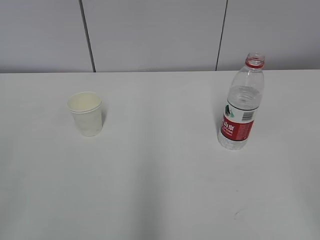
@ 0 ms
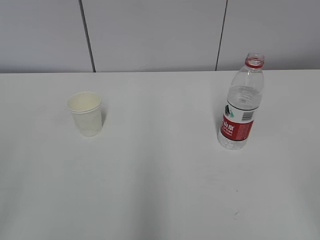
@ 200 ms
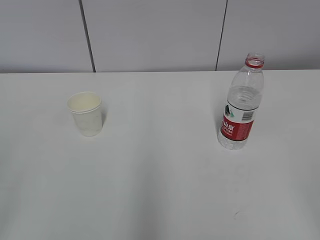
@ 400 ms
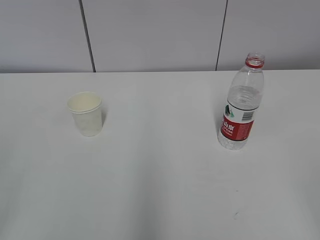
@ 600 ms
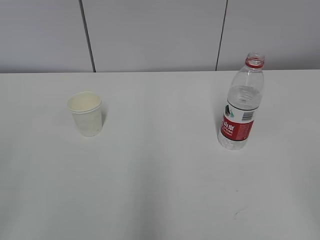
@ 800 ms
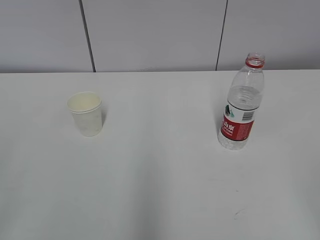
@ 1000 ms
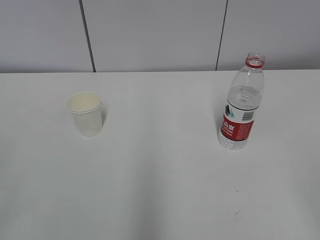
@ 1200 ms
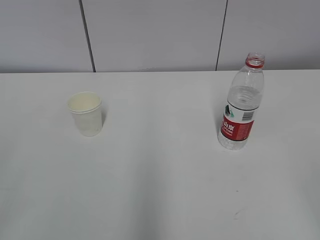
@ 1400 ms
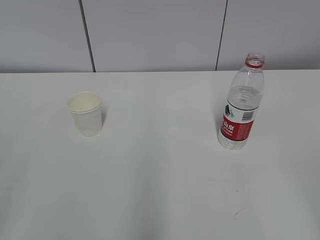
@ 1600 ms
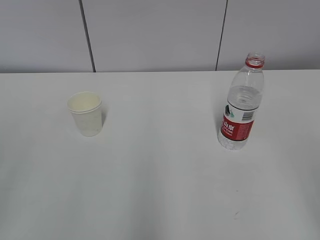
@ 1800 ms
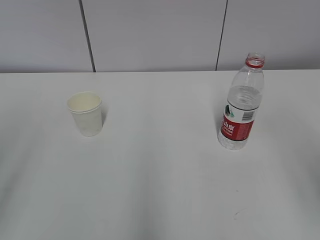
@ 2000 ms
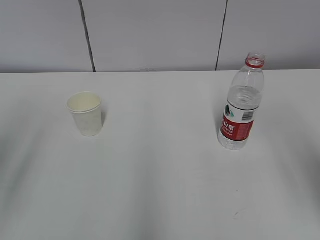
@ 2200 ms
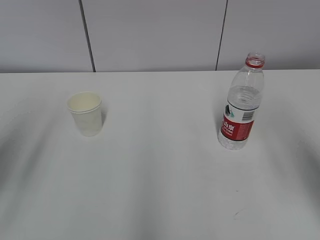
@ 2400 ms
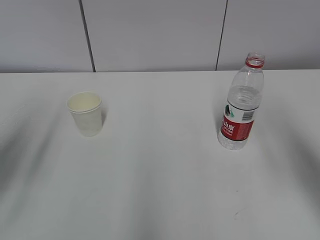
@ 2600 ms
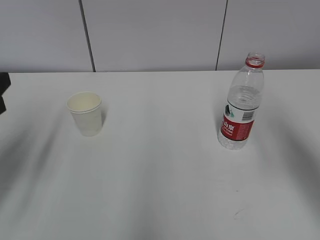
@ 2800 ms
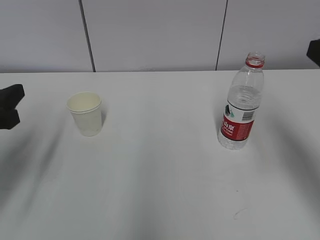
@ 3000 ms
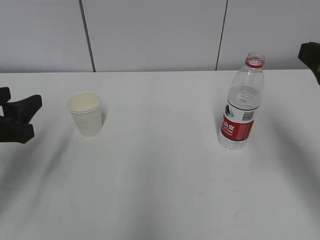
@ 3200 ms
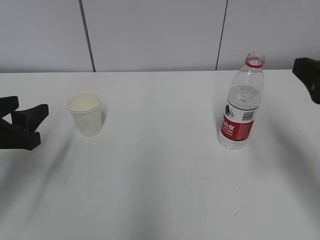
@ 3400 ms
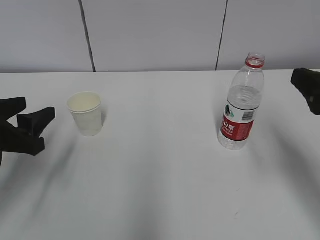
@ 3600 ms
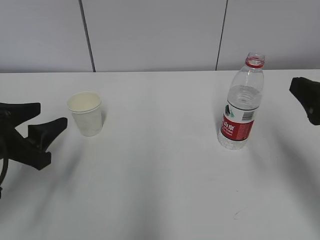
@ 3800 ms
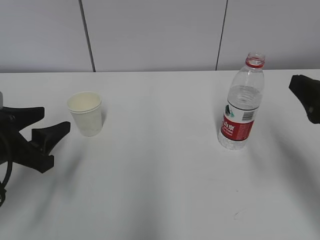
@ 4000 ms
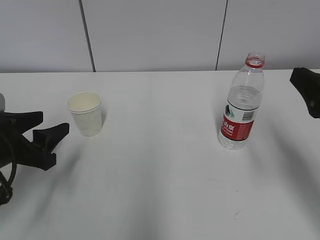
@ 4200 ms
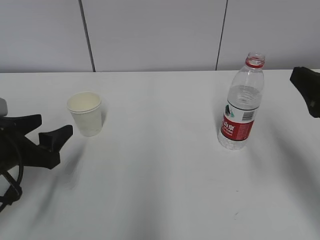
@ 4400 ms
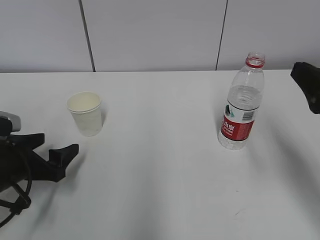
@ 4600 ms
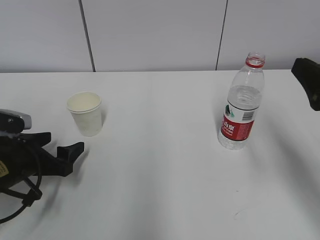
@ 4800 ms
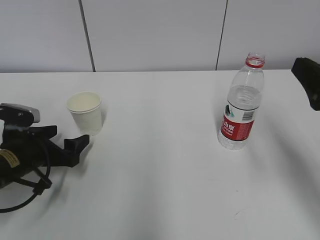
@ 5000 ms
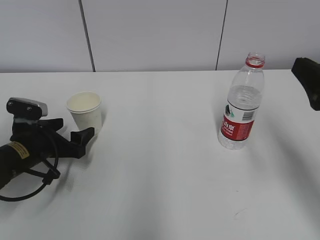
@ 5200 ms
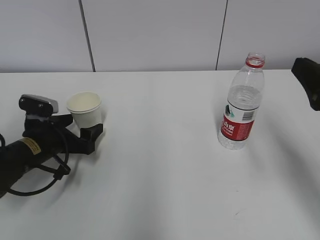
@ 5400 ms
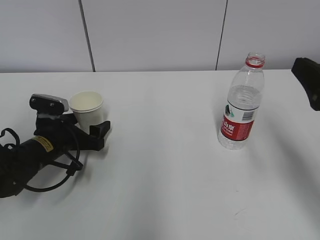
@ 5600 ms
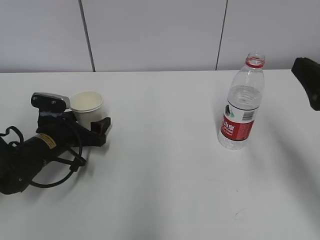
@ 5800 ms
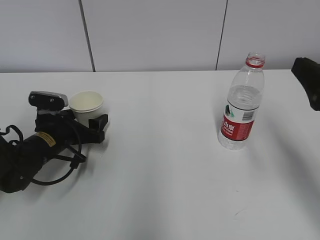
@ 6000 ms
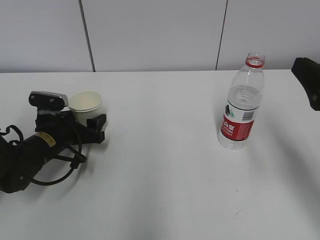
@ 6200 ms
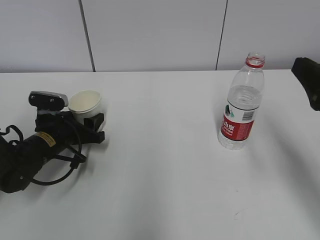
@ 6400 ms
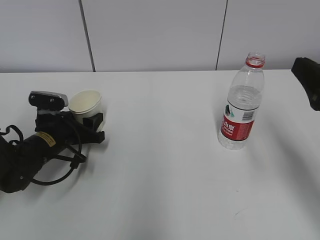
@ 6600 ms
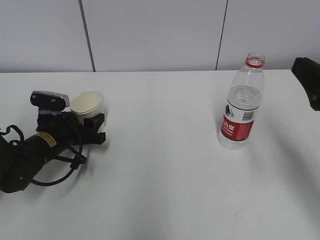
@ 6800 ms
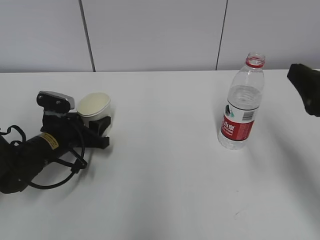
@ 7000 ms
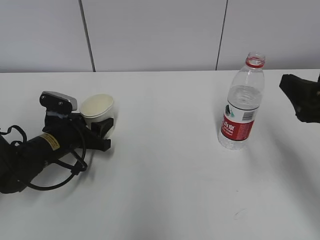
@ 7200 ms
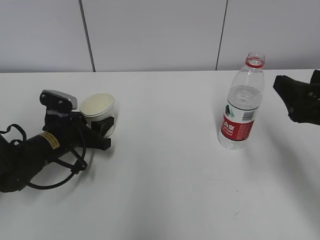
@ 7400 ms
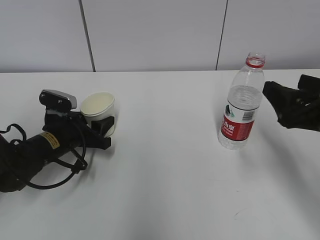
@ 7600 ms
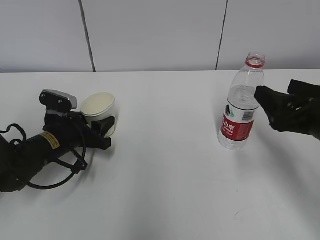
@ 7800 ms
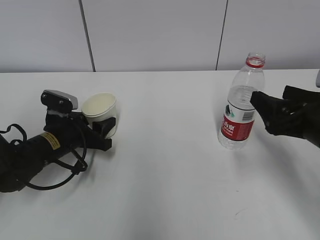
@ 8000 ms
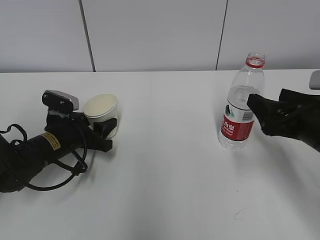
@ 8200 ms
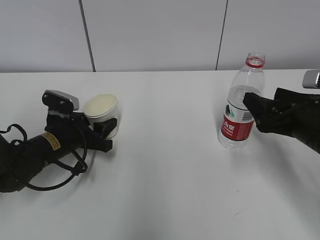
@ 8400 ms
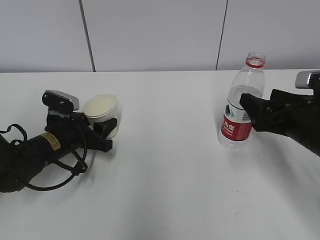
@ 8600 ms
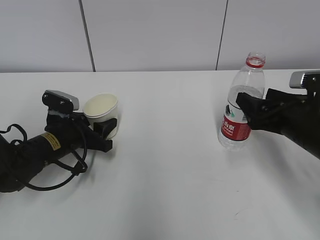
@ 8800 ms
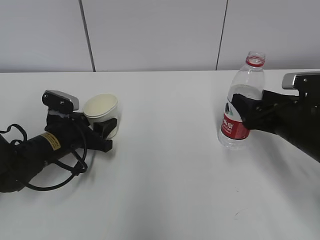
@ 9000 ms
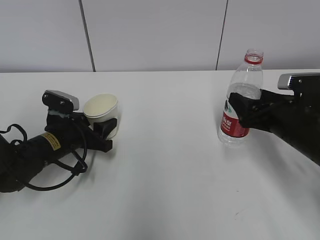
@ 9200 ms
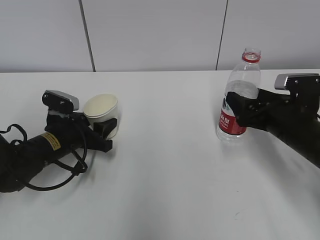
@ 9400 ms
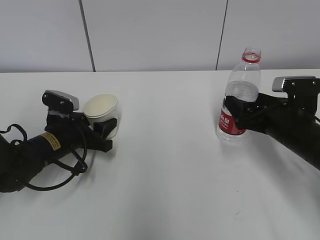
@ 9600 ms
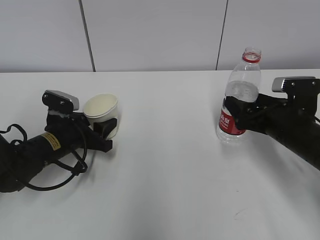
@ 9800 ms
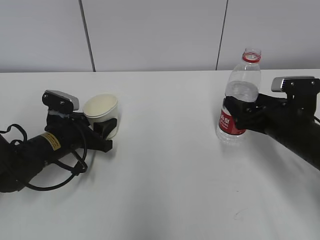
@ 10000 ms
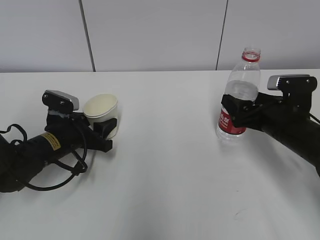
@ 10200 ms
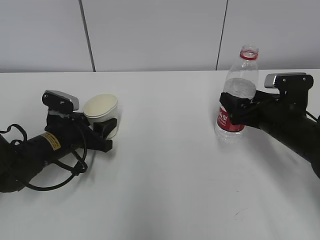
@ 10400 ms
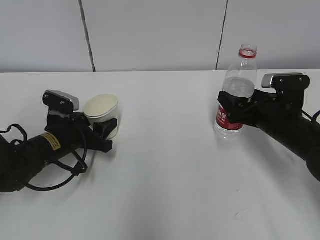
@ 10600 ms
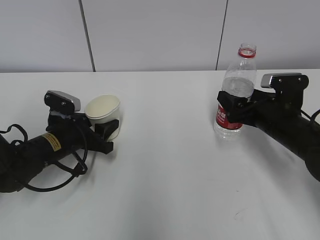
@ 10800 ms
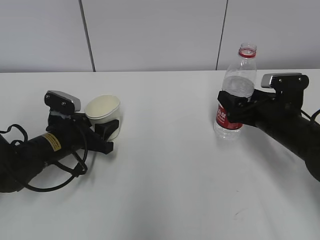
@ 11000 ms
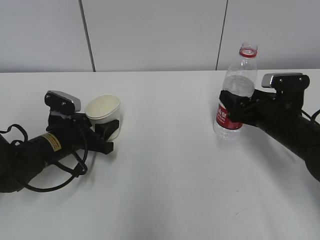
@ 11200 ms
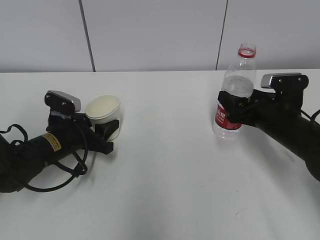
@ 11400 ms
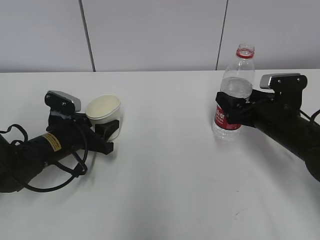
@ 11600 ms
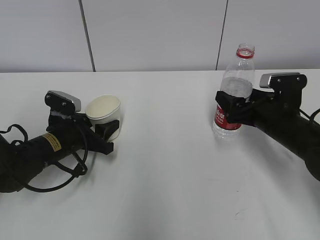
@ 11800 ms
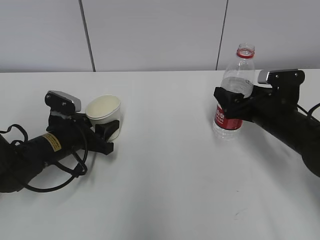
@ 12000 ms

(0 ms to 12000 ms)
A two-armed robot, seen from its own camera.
Step, 0 ms - 5600 ms: Grab the paper cup with the left hand.
Step, 5800 ms - 11200 ms: Grab the water bottle with the right hand.
1600 ms - 3000 ms: Both grippers travel together forward, roughly 20 cm.
3000 ms - 4400 ms: Both grippers travel together downward, some 5 cm.
4400 ms - 6000 ms: The left gripper is displaced forward and downward by roughly 15 cm.
6000 ms - 7600 ms: The right gripper moves some 5 cm; the left gripper closes its fingers.
7600 ms - 9000 ms: The right gripper shifts about 10 cm downward and forward.
9000 ms - 10400 ms: There are only small adjustments of the grippers.
10400 ms - 12000 ms: The right gripper closes, then reopens.

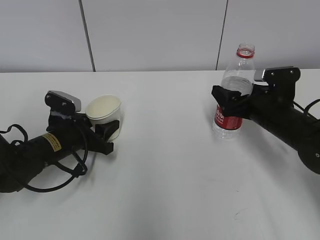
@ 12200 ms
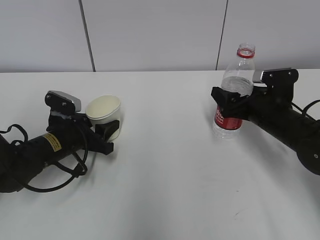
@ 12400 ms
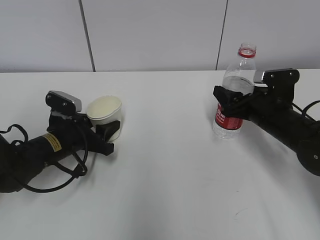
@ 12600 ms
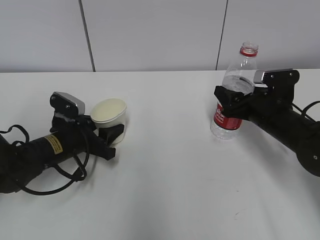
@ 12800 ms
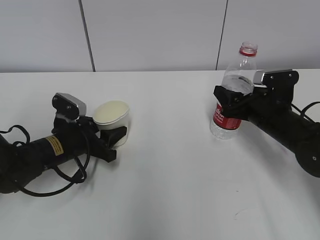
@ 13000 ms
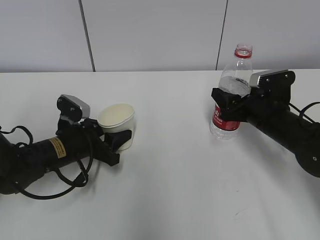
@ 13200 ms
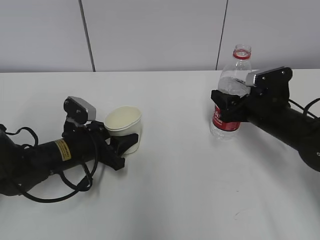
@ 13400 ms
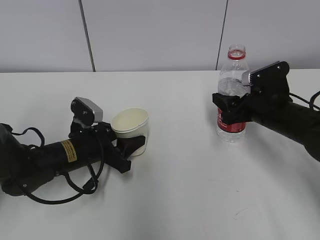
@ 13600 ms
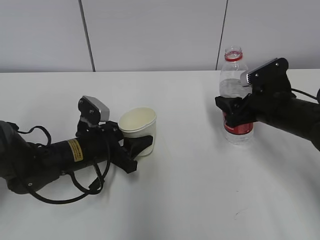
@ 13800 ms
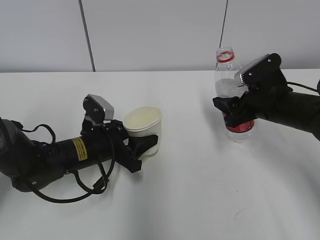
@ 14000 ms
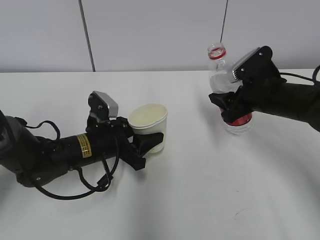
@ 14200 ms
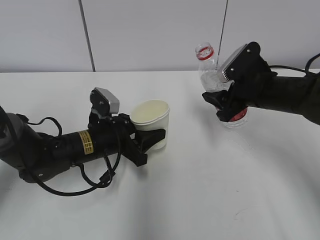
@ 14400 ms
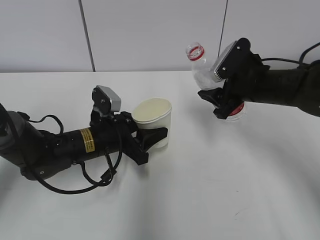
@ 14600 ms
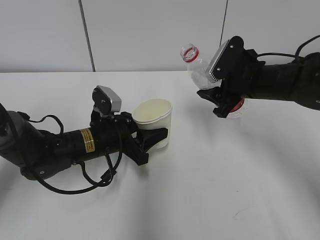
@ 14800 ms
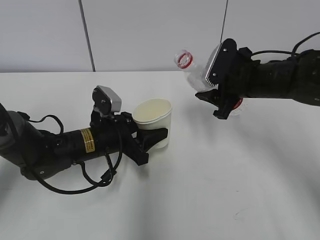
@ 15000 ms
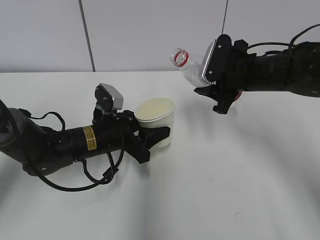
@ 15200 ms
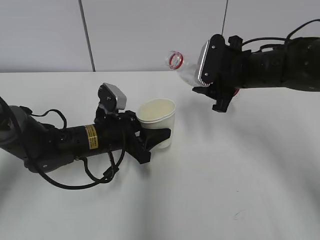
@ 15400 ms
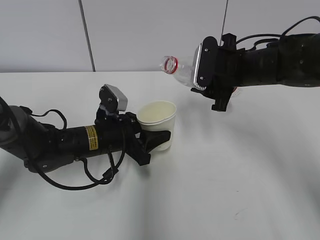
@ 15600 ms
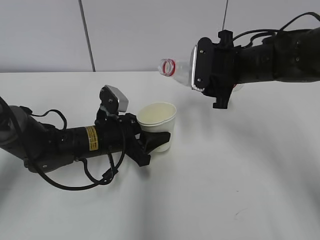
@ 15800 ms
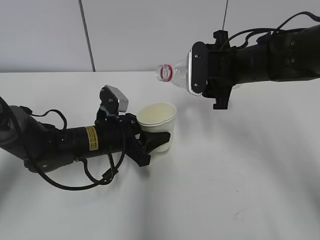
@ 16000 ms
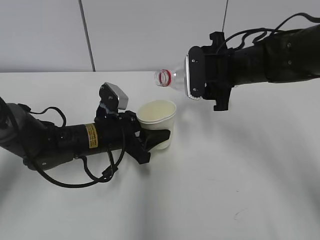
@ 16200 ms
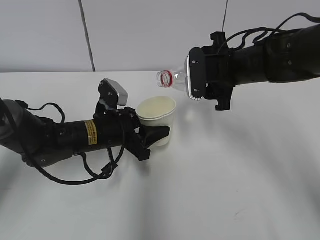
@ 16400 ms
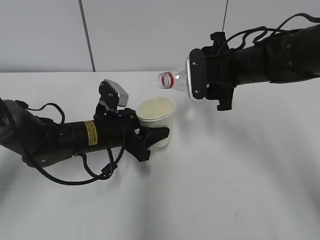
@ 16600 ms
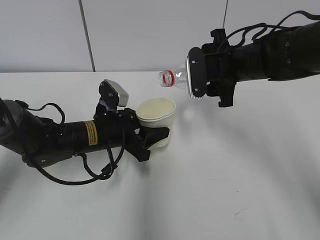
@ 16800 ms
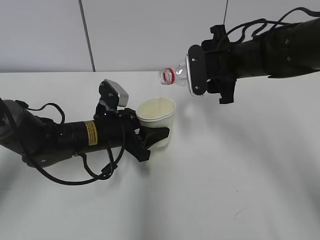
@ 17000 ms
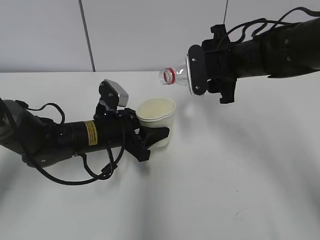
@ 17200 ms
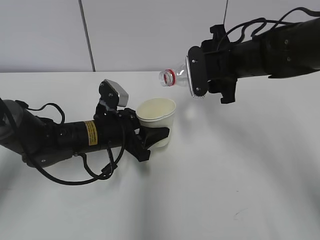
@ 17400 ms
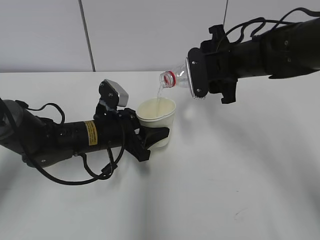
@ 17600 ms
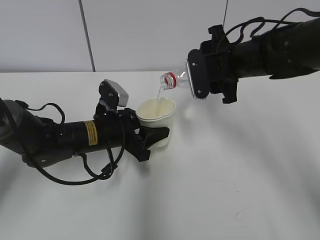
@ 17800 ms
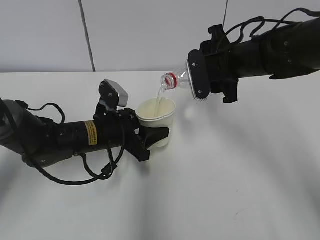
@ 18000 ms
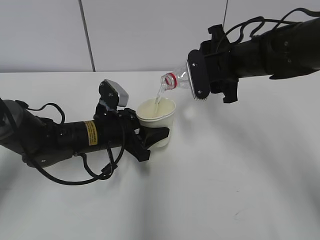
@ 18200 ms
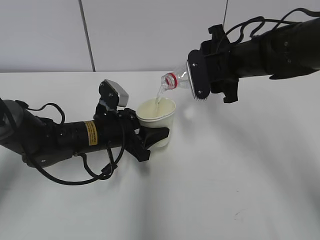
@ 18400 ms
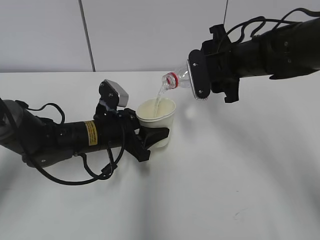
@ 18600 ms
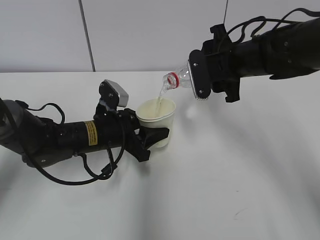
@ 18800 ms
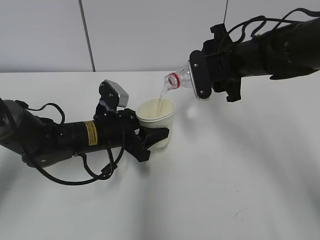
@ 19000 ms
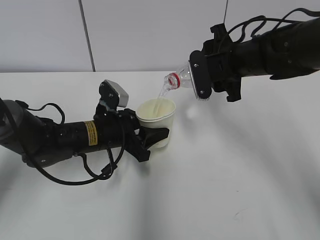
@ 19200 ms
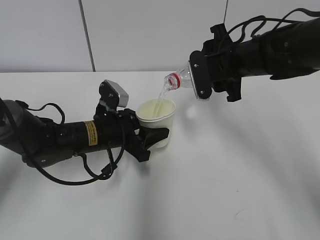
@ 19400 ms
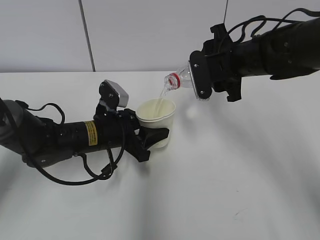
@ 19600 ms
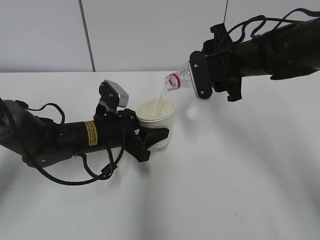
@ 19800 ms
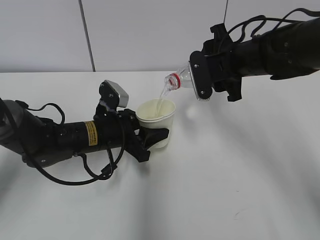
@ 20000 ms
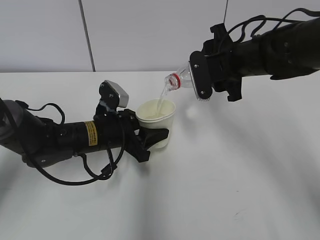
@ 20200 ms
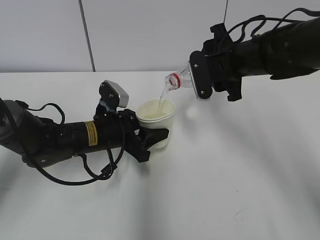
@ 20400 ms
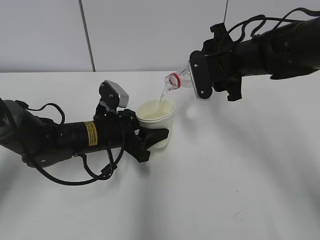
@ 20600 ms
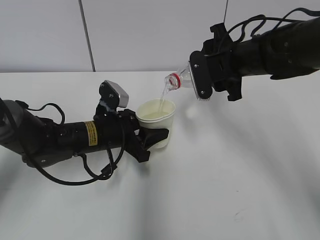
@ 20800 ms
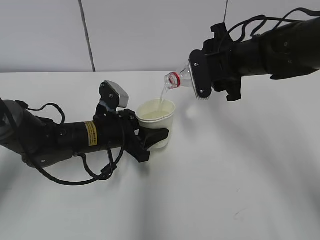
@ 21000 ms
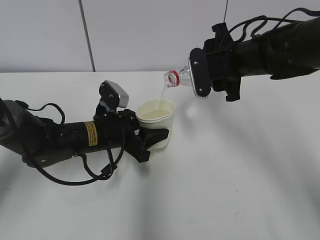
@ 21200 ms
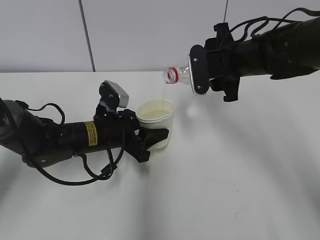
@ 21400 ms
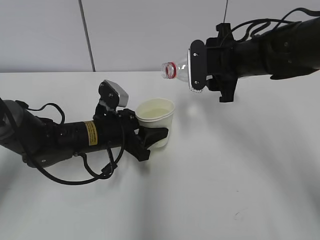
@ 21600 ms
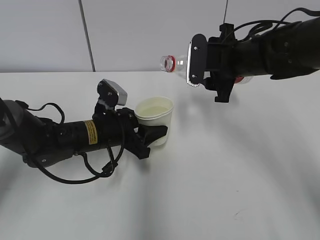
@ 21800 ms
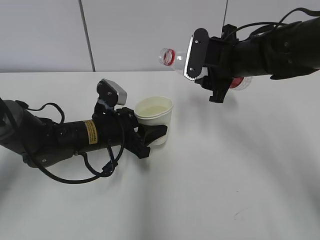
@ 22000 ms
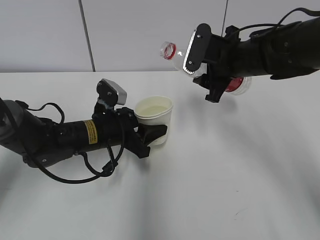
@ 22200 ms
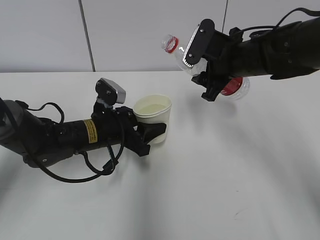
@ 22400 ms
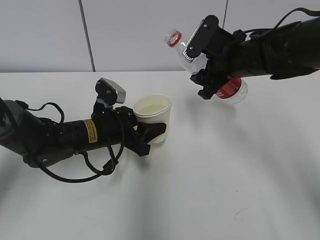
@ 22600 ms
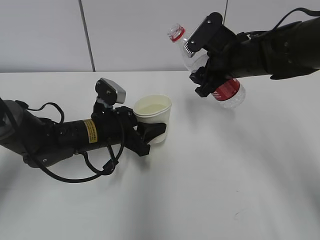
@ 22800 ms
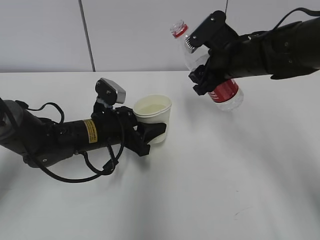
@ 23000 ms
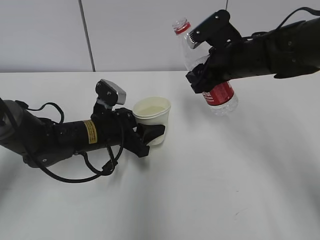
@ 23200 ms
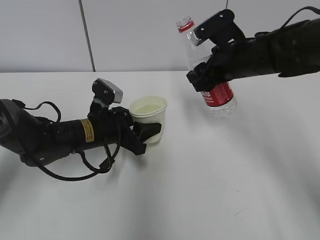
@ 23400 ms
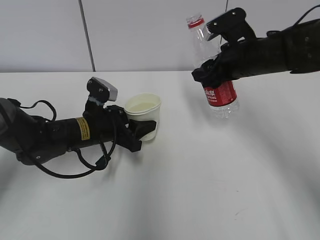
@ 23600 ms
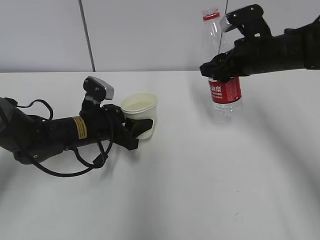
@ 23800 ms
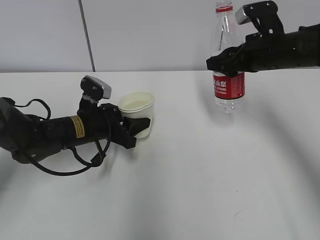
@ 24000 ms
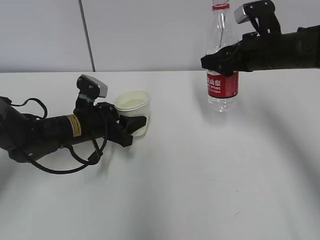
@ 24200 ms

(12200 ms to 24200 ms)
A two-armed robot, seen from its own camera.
Step, 12200 ms - 14000 ms: Lift the paper cup with the left hand.
Step, 14200 ms - 17800 ms: Fill water with the left hand.
Step, 14200 ms - 17800 ms: Pour water with the right hand.
Step, 20800 ms - 23600 ms: Place the paper cup with the left hand.
12200 ms - 13800 ms: The right gripper closes up. Meanwhile the left gripper goes approximately 5 cm to the right.
13800 ms - 15200 ms: The right gripper heads upward, covering approximately 5 cm.
16600 ms - 18200 ms: The grippers stay close to where they were, moving slightly.
18200 ms - 21200 ms: The two grippers keep their place.
22600 ms - 24200 ms: The right gripper goes some 5 cm to the right.
